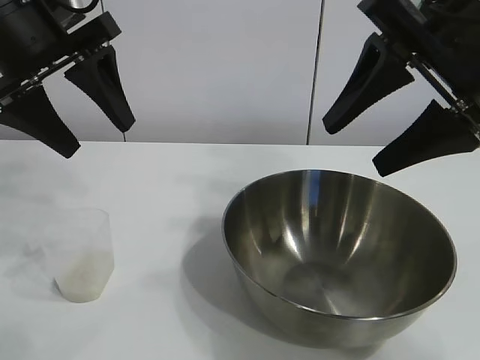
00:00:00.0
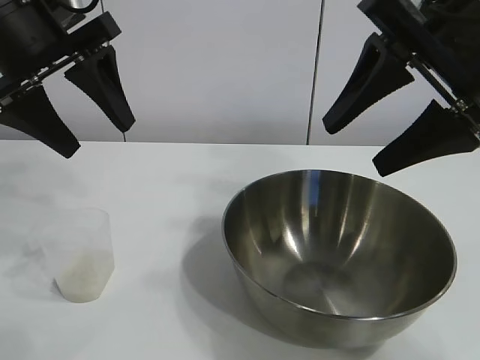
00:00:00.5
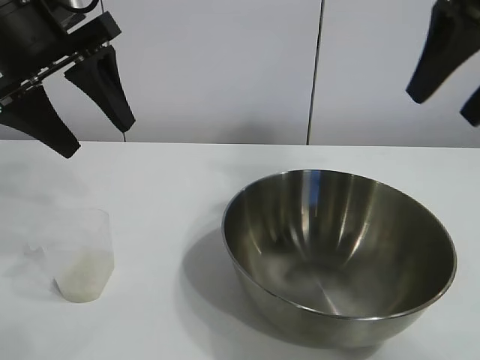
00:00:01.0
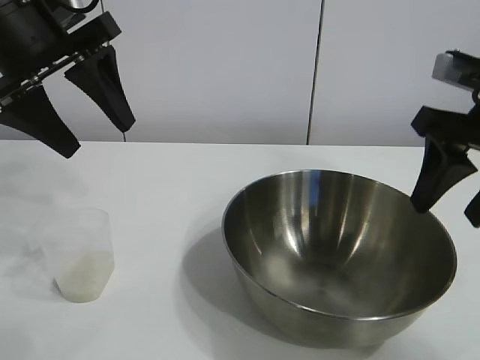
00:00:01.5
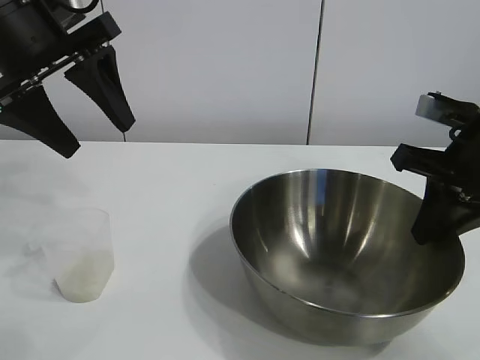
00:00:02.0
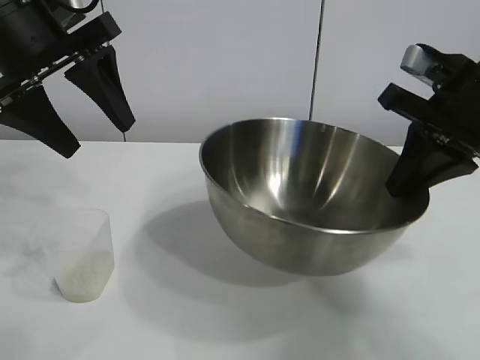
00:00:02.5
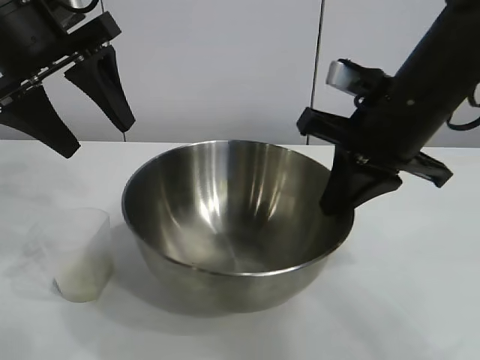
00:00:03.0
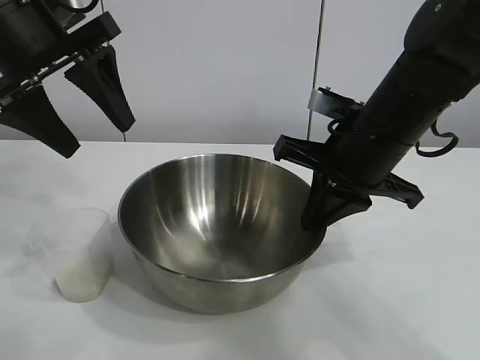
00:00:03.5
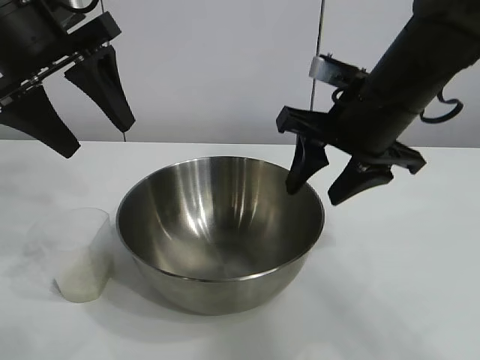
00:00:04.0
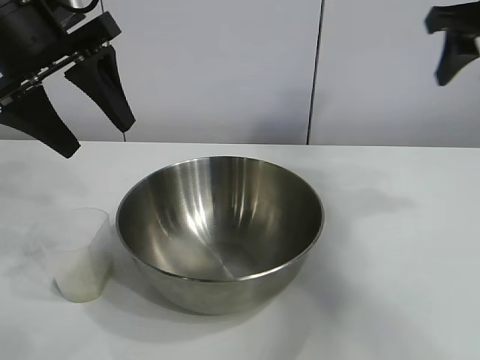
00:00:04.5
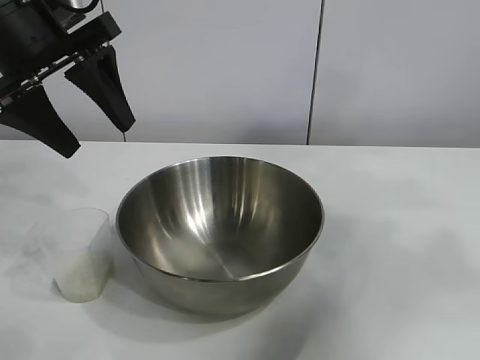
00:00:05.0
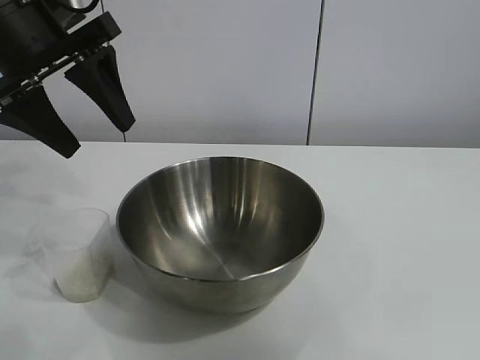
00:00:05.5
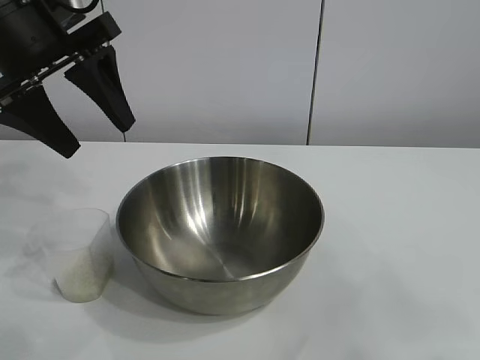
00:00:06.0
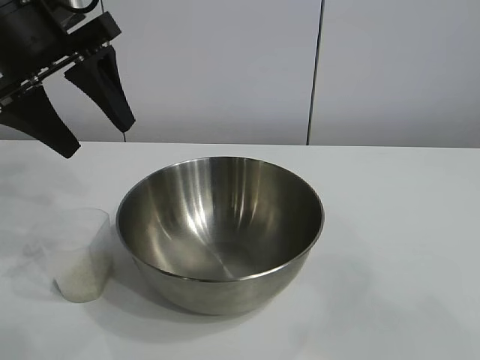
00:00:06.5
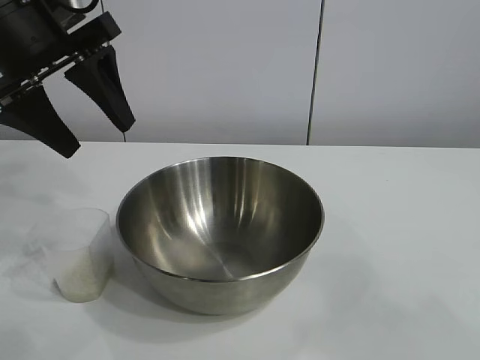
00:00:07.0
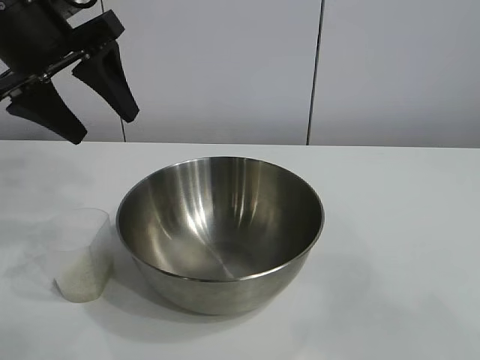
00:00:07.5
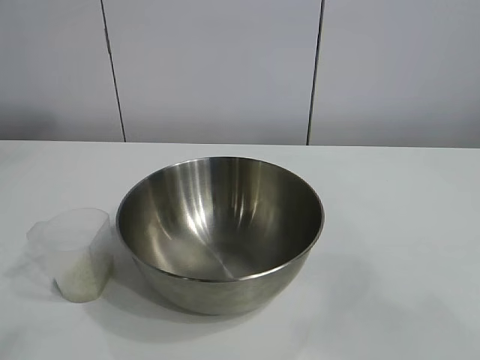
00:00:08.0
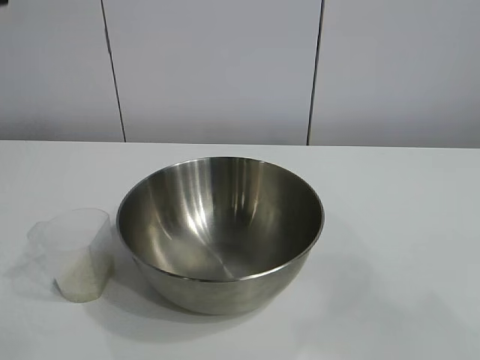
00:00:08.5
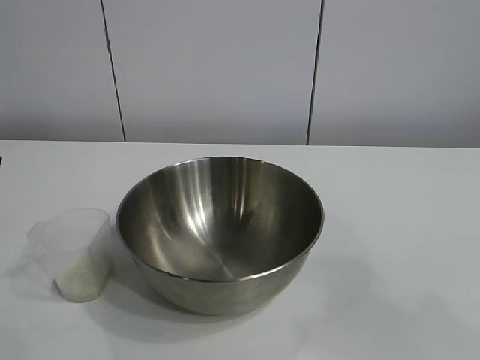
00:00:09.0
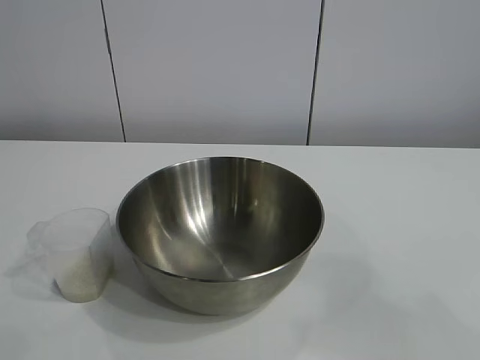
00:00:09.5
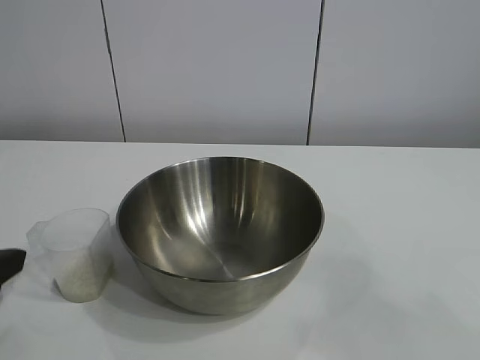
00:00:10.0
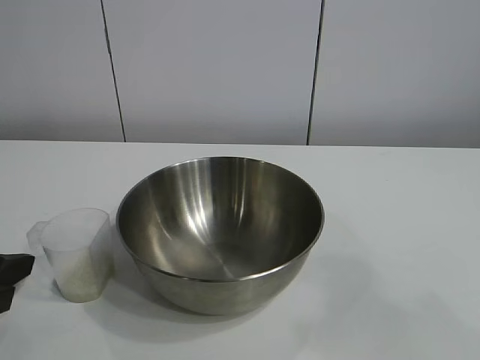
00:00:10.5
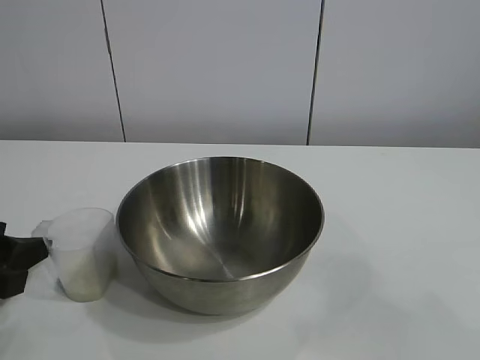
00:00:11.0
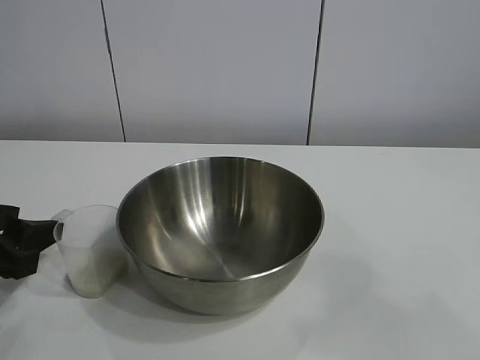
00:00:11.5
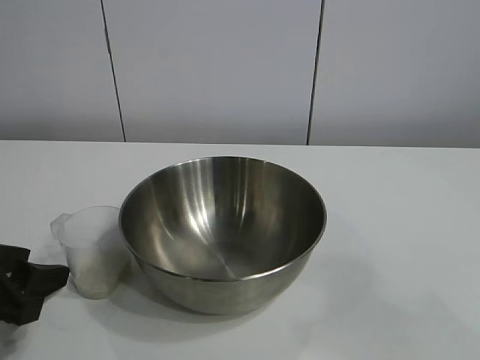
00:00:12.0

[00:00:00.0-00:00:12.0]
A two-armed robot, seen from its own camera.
Task of the whole recording: the right gripper grasp the rice container and place it in the center of the table, the left gripper grasp the rice scoop and pour the rice into the rice container.
Step, 00:00:01.0 to 00:00:03.5: Move the bowl in the center of view with right gripper.

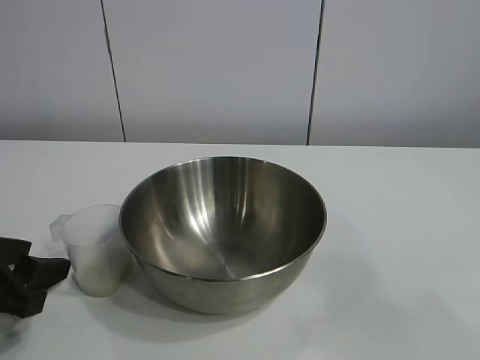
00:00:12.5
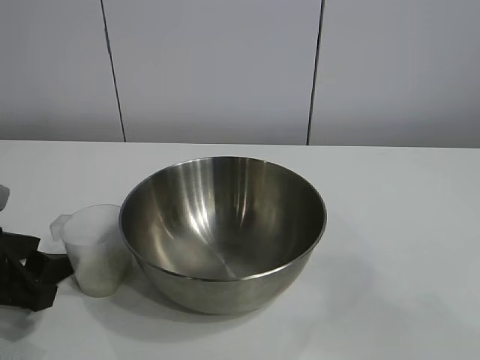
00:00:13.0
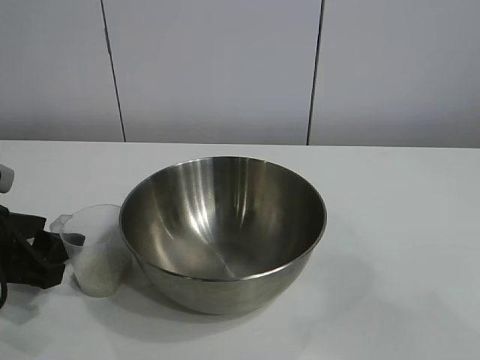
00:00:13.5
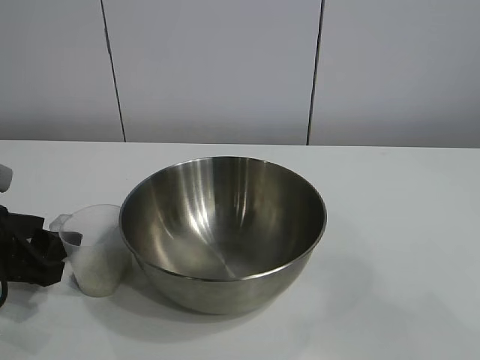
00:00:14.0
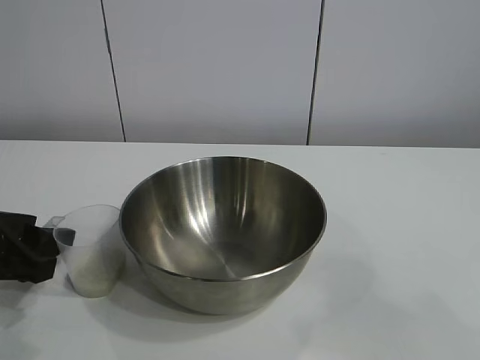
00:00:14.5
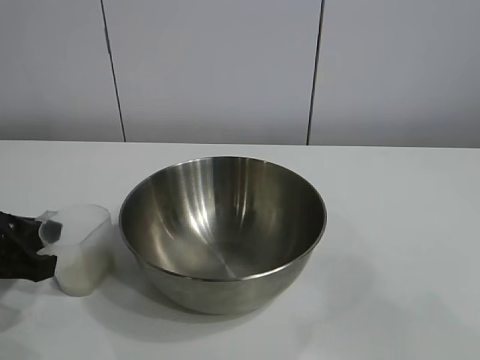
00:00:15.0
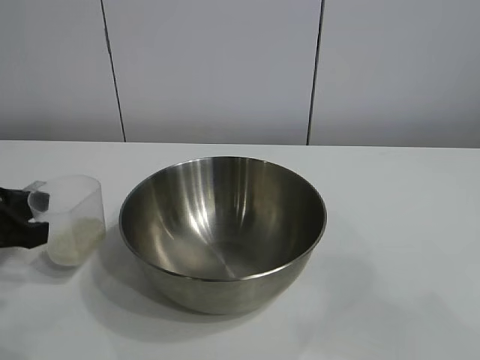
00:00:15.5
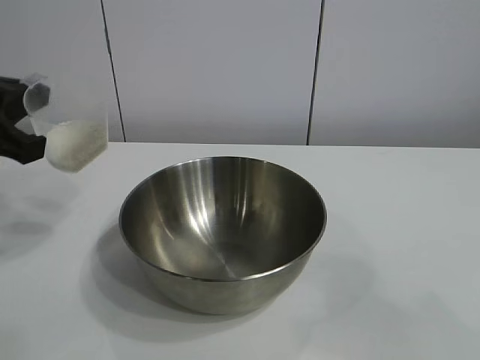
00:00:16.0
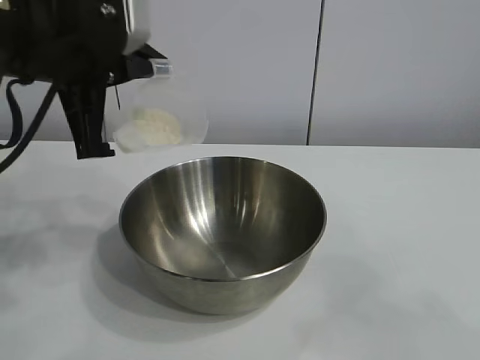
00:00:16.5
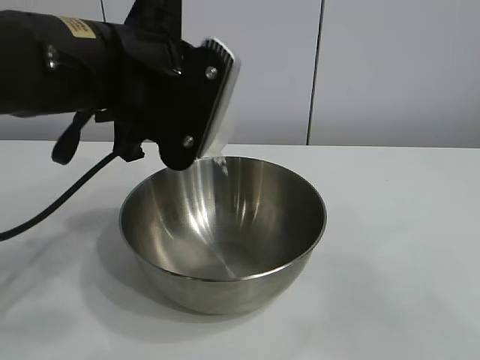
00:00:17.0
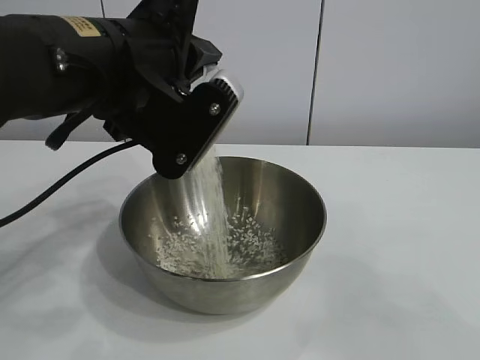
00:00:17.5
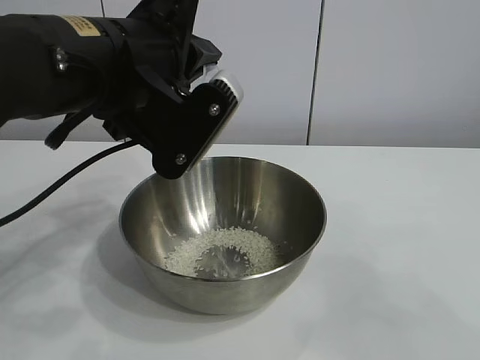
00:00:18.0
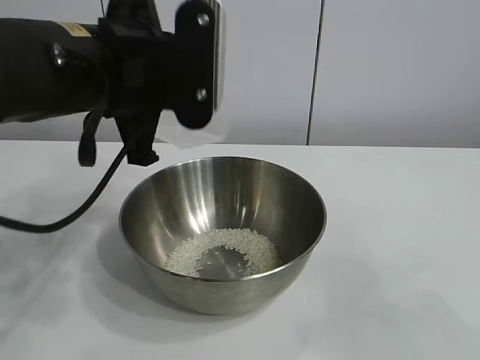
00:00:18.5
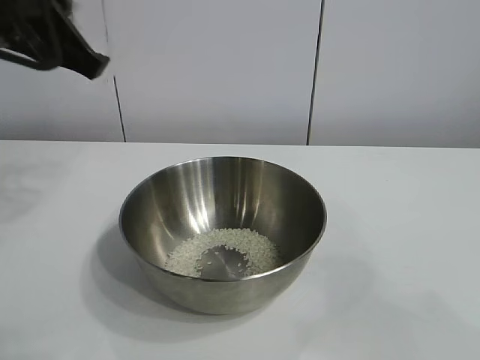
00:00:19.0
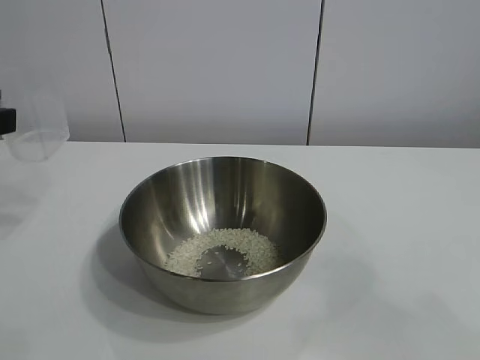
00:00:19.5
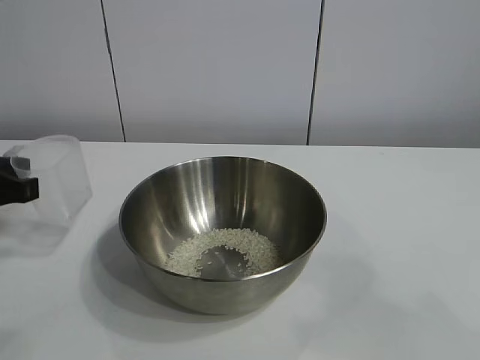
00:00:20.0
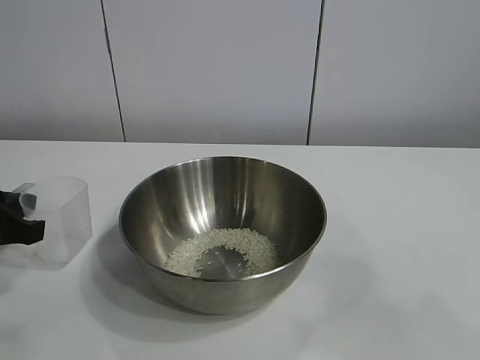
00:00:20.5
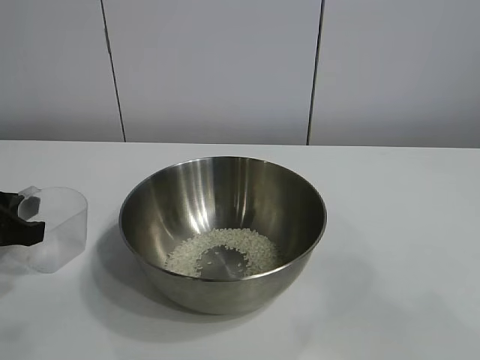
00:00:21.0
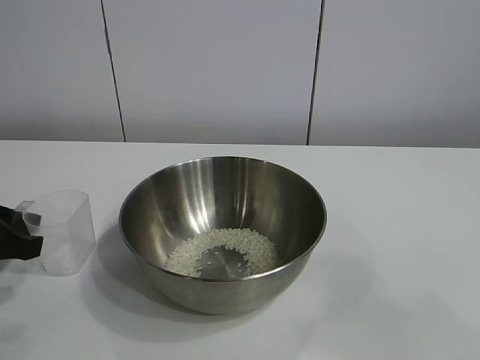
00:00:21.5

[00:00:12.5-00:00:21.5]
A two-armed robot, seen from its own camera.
Task of the whole recording: the right gripper grasp the rice container and place it in the center of the table, the left gripper grasp the rice scoop and pour the rice into the rice container.
Step, 00:00:12.5 to 00:00:14.5: Grasp the cup with rice in it with left gripper.
Step, 00:00:15.5 to 00:00:18.0: Pour the rice from the cup into the bowl with the left gripper.
Step, 00:00:18.5 to 00:00:21.0: Place the cup on the table with the left gripper.
